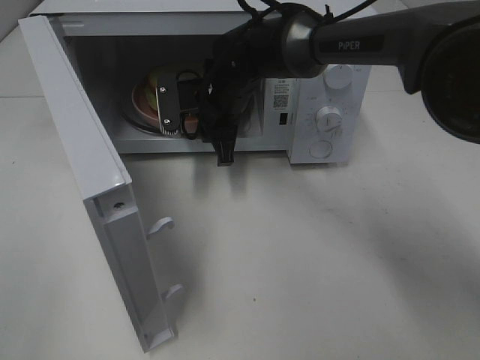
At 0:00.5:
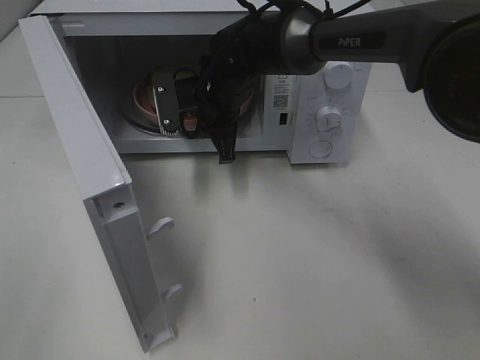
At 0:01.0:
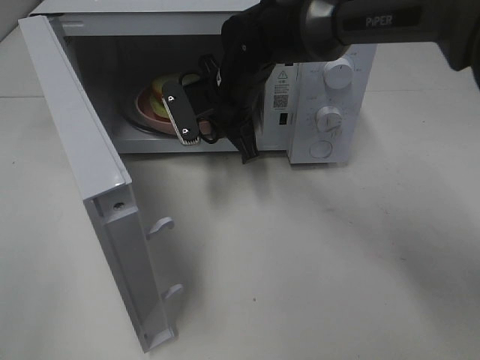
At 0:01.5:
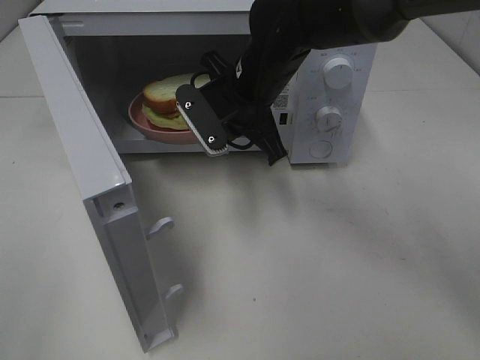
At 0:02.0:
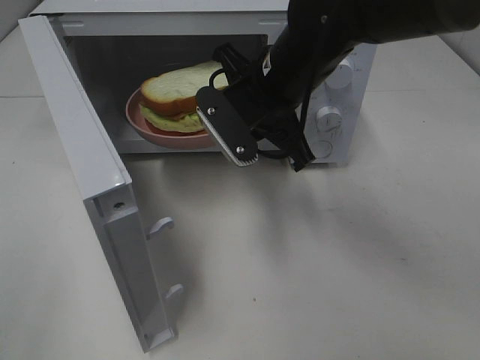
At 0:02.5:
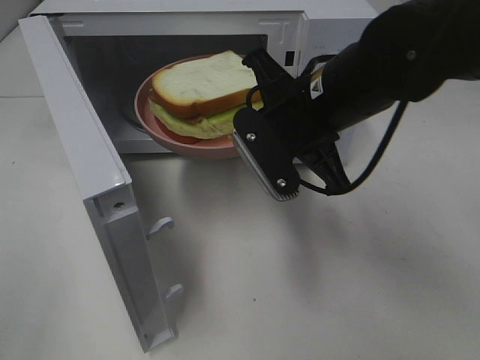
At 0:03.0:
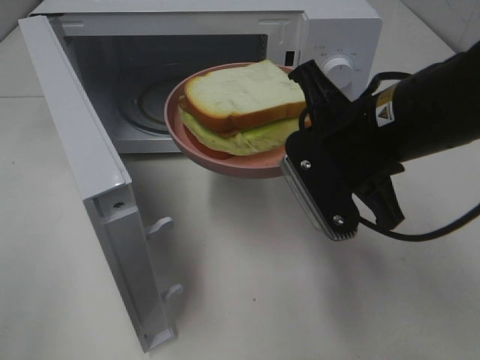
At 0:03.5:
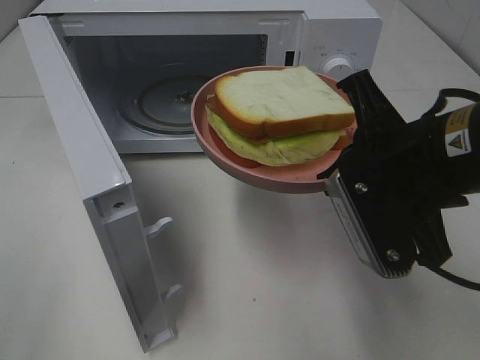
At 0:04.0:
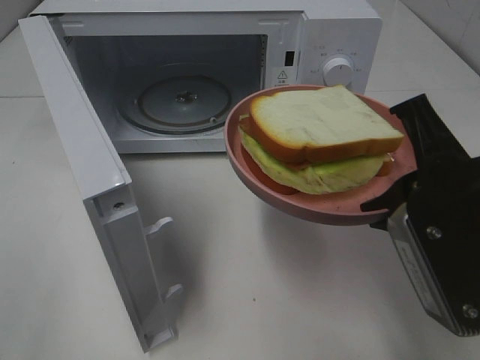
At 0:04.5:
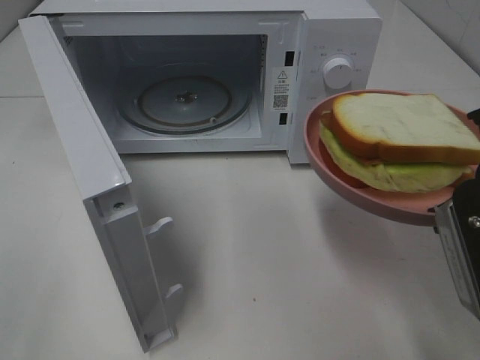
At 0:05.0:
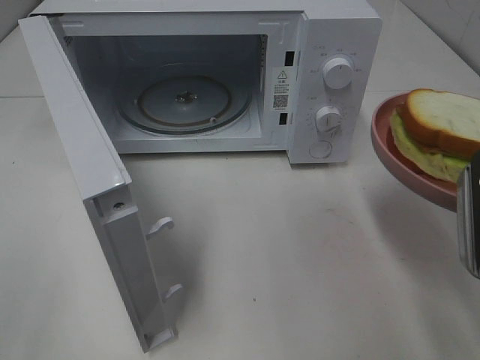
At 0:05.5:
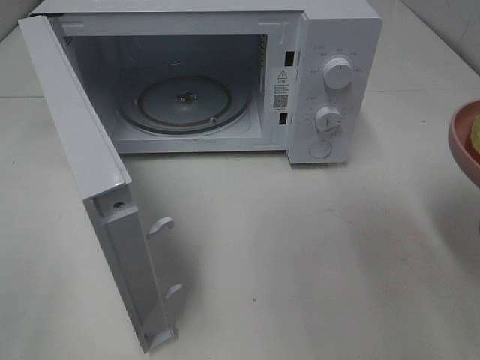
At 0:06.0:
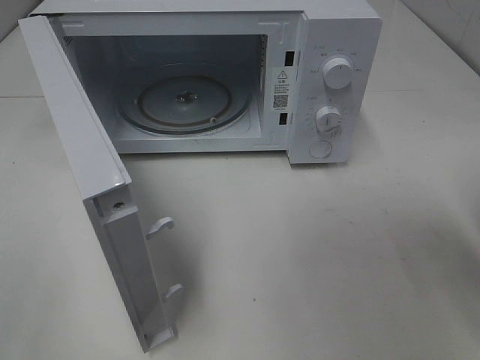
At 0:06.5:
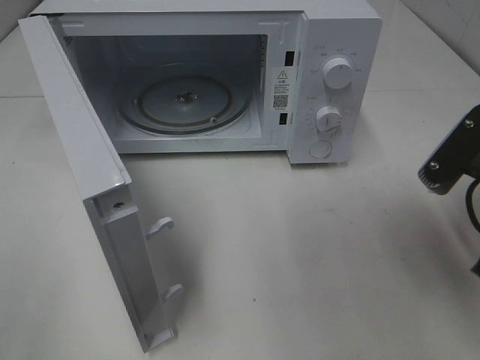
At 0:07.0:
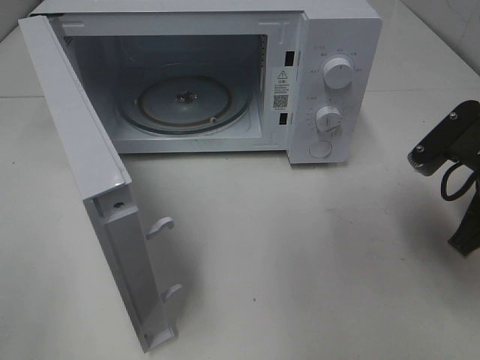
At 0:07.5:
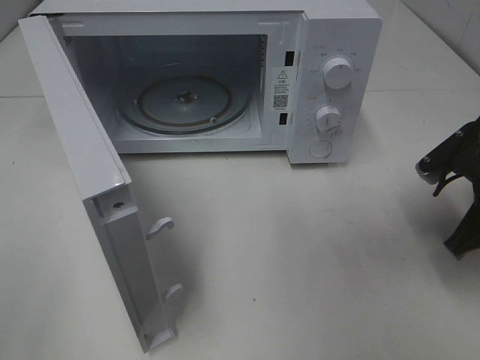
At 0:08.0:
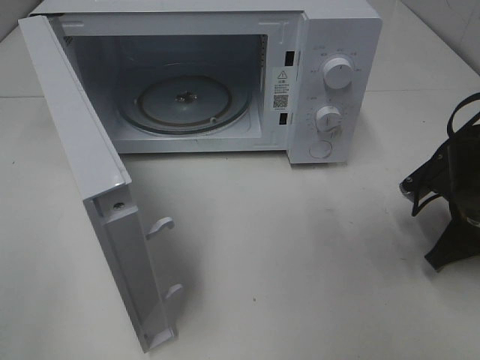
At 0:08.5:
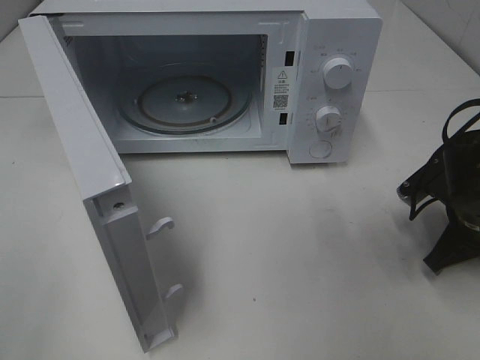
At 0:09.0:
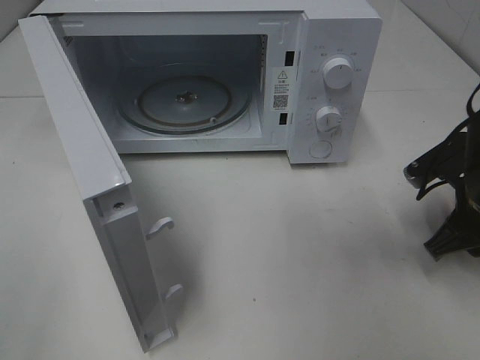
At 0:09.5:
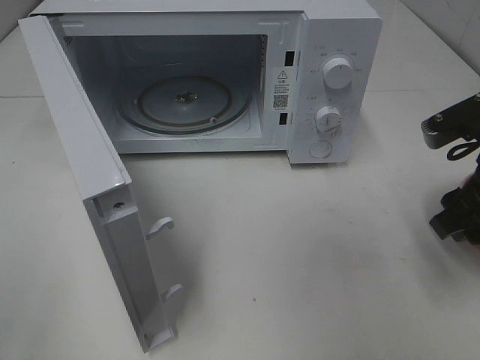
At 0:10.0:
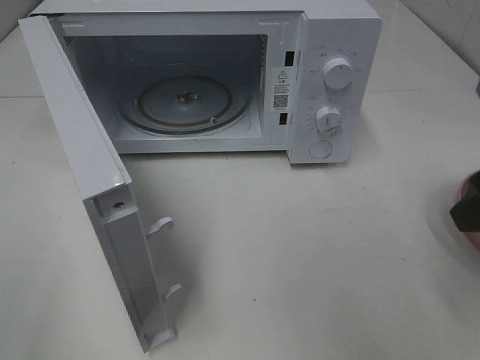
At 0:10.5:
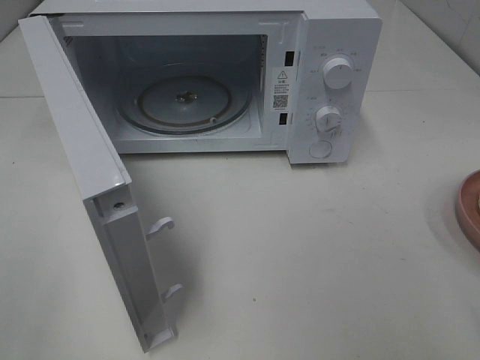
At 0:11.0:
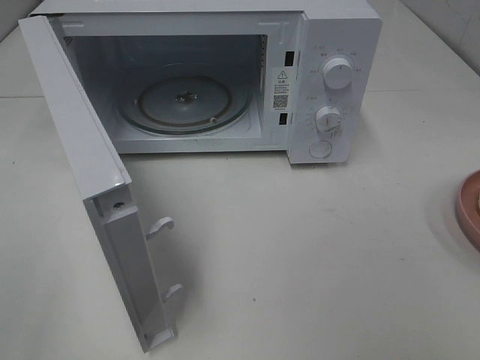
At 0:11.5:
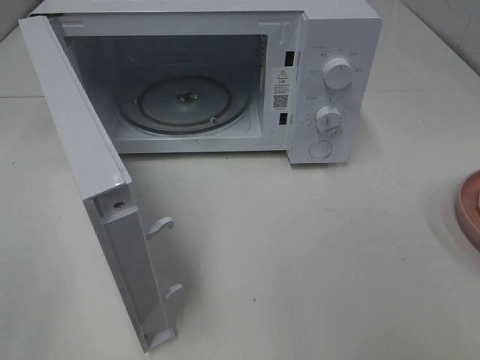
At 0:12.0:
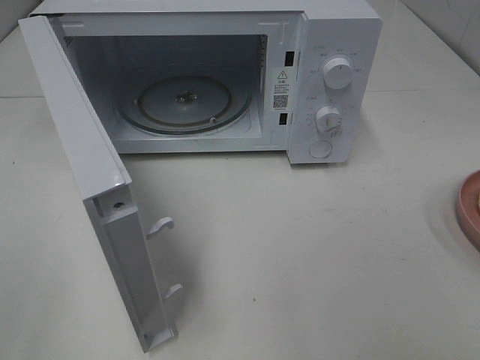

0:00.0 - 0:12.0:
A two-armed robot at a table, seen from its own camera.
Task of the whole recording: Heat Sandwich.
Step, 0:01.0 - 0:09.0: Right hand: place the plate on the table.
0:00.0 - 0:02.0: The right gripper shifts roughly 15 cm backward, upward and to the right.
0:02.0 - 0:04.0: The right gripper shifts some 20 cm backward and to the right.
0:04.0 - 0:06.0: The right gripper shifts some 5 cm to the right.
0:06.0 - 0:08.0: The right gripper shifts roughly 20 cm downward and forward.
0:08.0 - 0:10.0: The right gripper is displaced upward and backward by about 20 cm, and opens its fingers.
0:10.0 - 0:12.0: The right gripper shifts some 15 cm backward.

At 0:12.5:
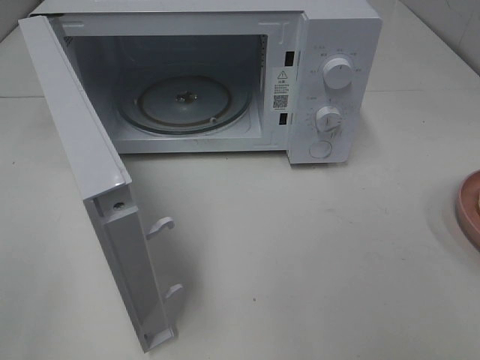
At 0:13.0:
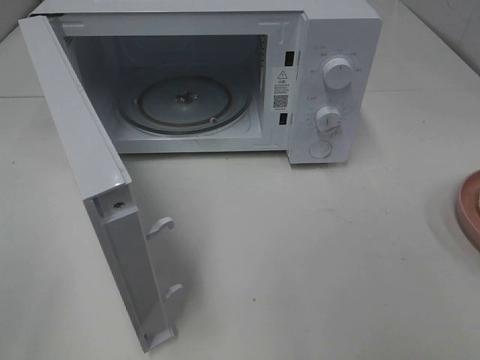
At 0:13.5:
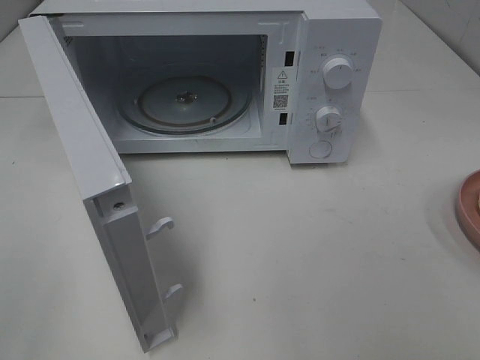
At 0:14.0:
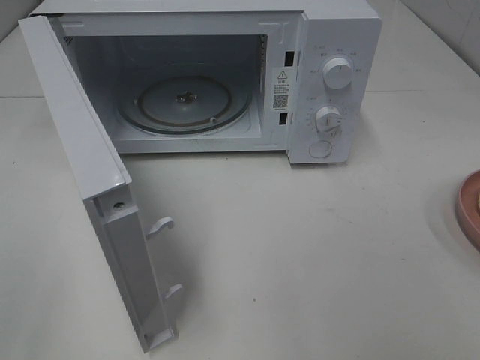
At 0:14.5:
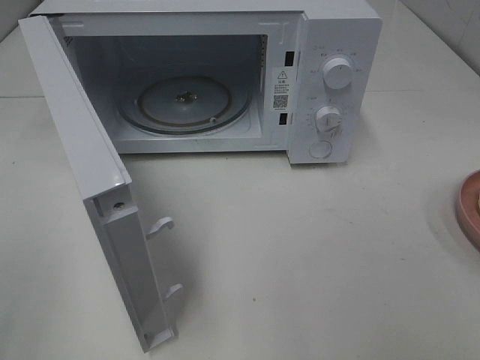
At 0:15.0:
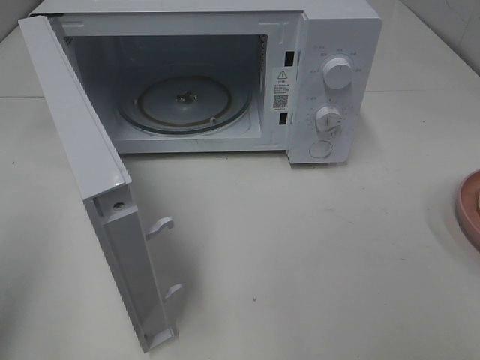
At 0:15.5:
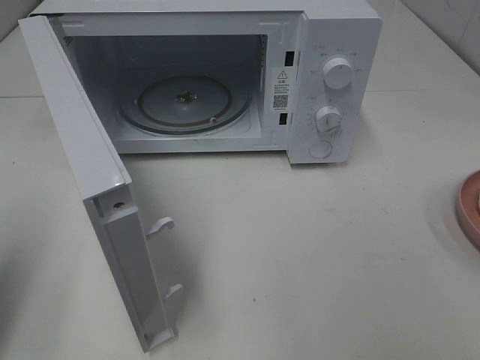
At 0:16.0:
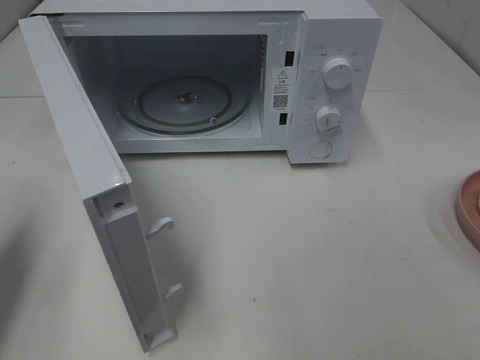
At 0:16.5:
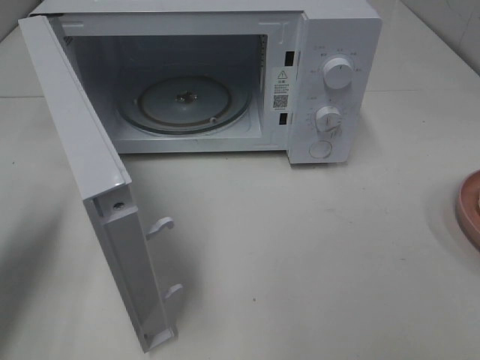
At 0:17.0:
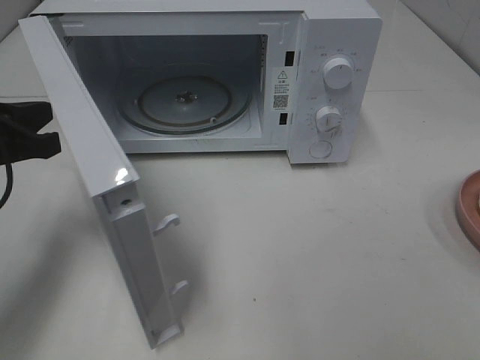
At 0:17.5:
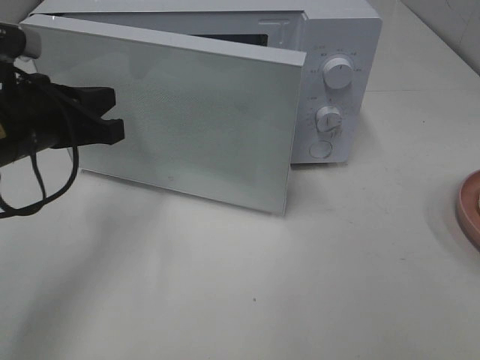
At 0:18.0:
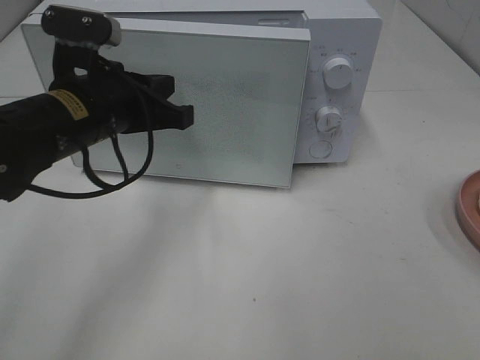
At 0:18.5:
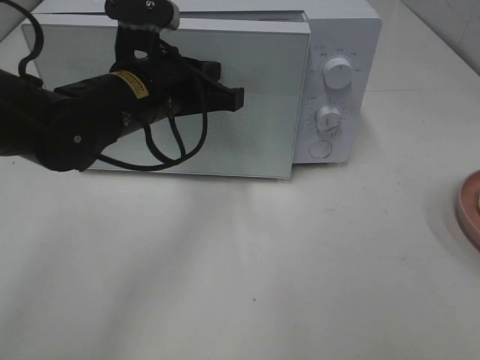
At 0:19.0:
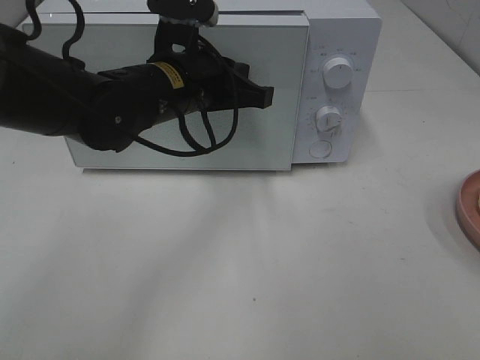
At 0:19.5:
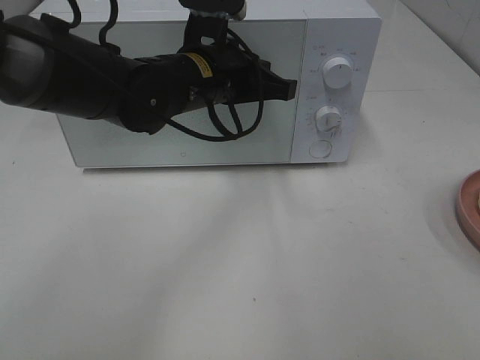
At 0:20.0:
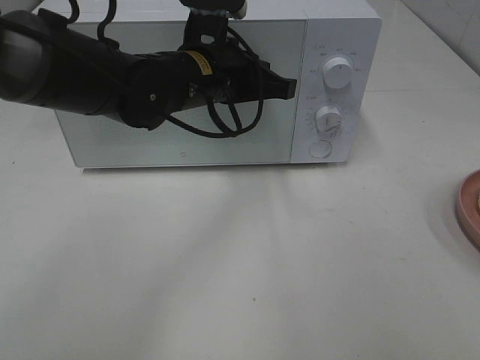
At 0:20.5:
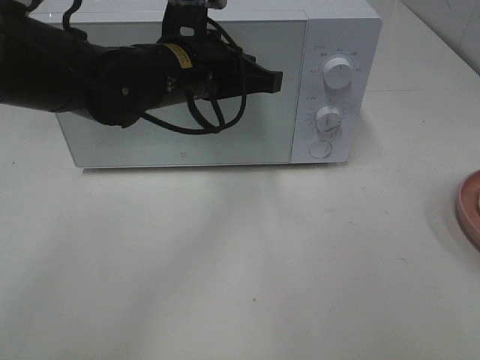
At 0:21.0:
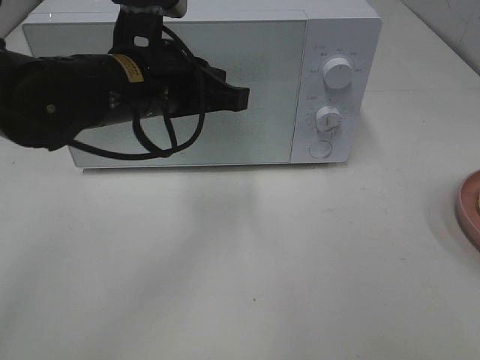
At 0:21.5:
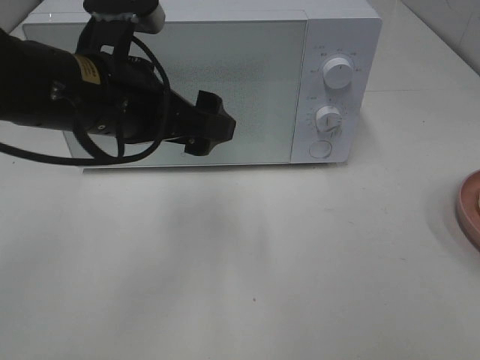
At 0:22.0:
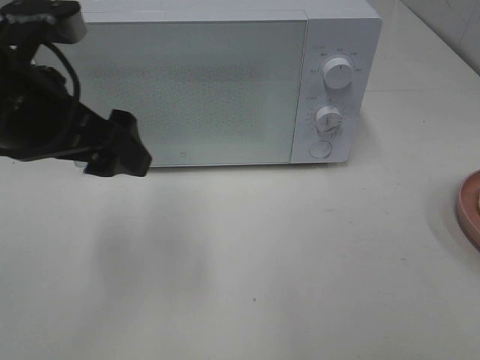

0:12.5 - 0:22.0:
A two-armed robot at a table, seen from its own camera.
Task of the whole recording: Heat Sandwich.
Step, 0:12.5 - 0:21.0: Left hand: close the microwave door.
0:14.5 - 0:16.5: The left gripper moves forward and downward, approximately 20 cm, and closes up.
0:16.5 - 0:18.0: The left gripper moves to the right and forward, about 20 cm.
0:18.0 - 0:20.0: The left gripper is displaced to the right and forward by some 10 cm.
0:20.0 - 0:22.0: The left gripper shifts some 20 cm to the left, backward and upward, and opens.

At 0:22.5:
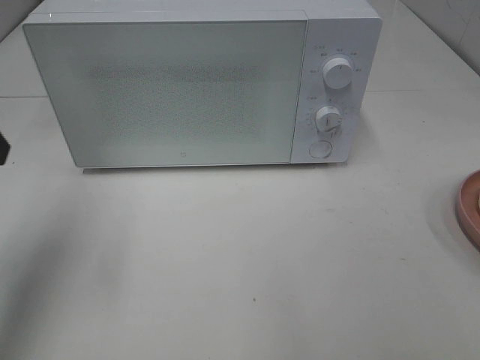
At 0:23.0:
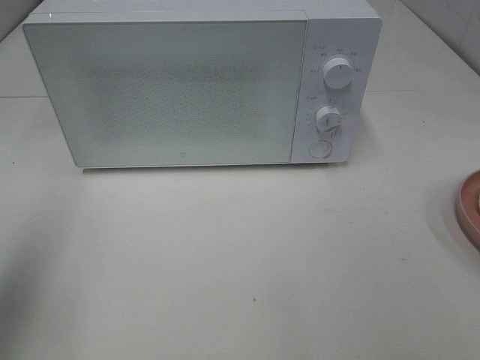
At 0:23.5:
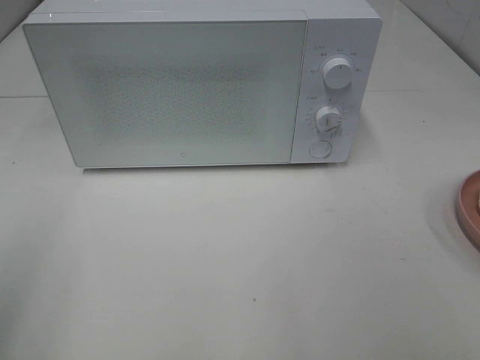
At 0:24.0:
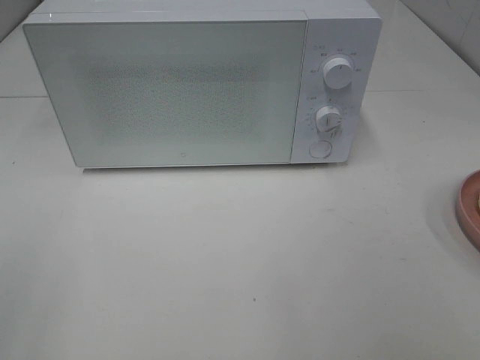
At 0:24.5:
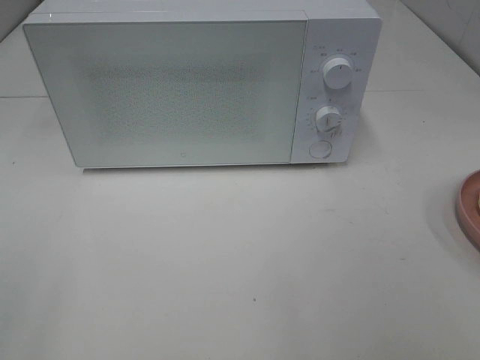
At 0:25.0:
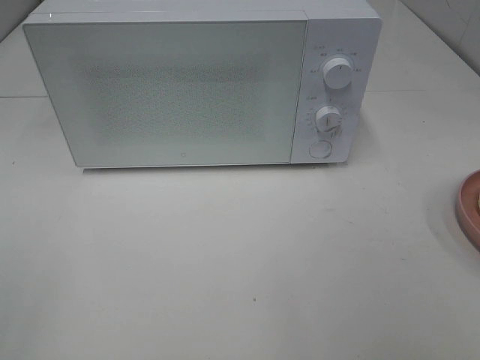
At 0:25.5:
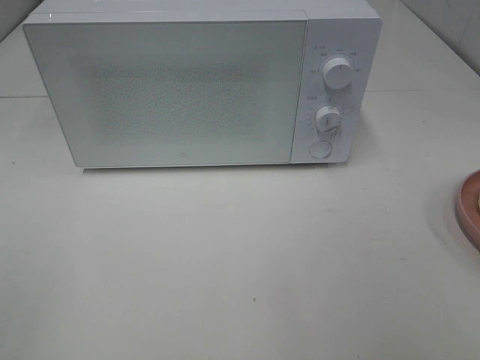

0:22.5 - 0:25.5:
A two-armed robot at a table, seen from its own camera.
Task of the whole recording: Heat Sandwich.
0:22.5 - 0:24.0: The left gripper heads backward, covering some 20 cm.

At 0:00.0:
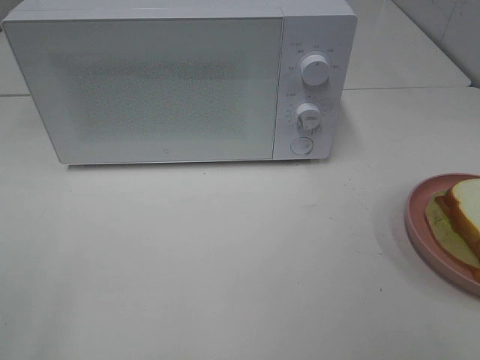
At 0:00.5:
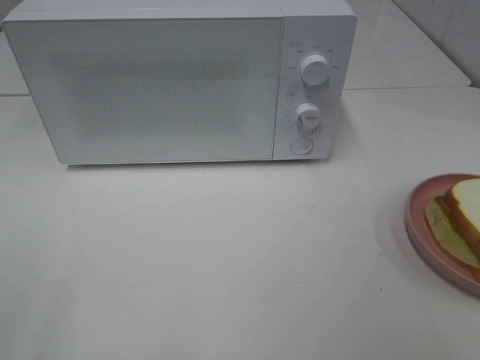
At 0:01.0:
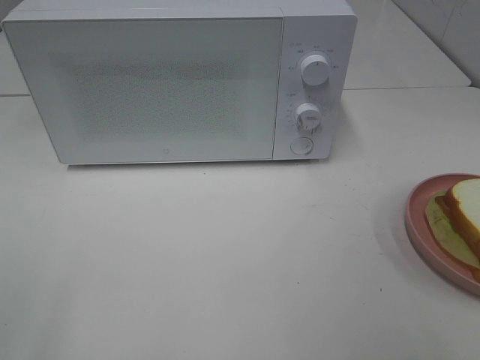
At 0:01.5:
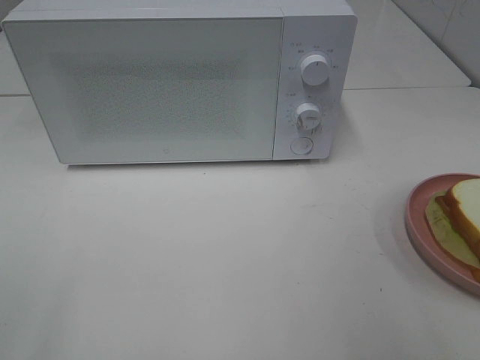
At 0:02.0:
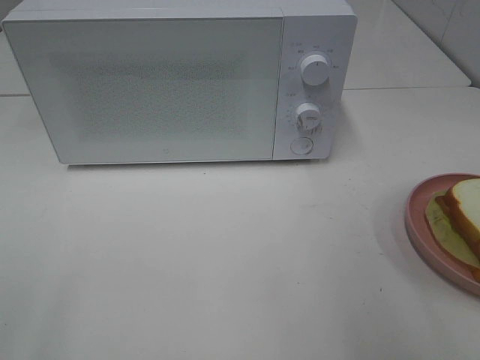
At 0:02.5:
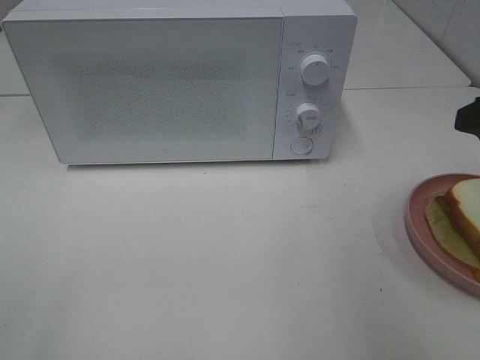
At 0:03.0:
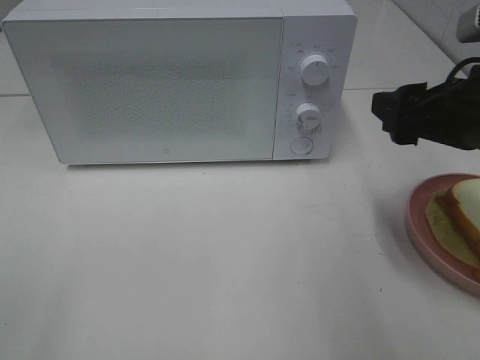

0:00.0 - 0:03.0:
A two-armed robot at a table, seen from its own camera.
Task of the whole recording: Heat Sandwich.
0:01.5 - 0:03.0: The right gripper heads forward and downward, covering approximately 15 cm.
